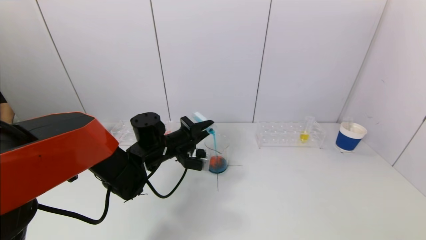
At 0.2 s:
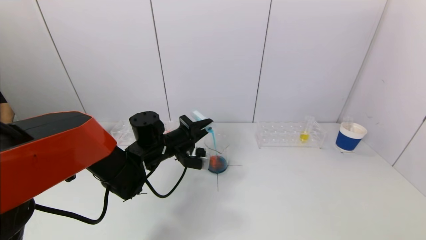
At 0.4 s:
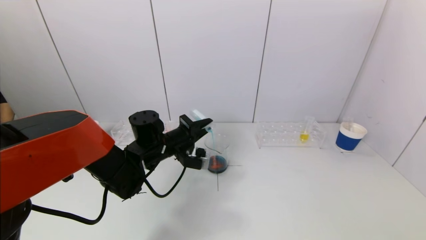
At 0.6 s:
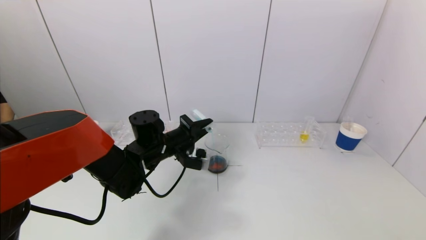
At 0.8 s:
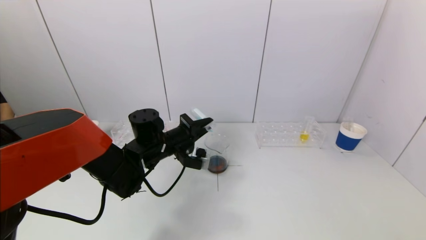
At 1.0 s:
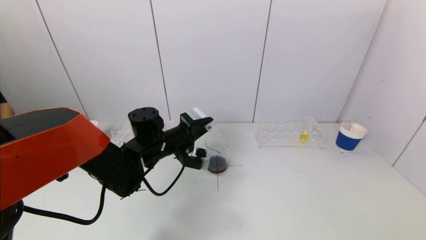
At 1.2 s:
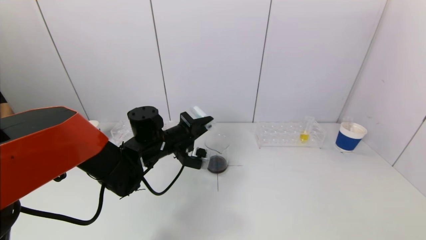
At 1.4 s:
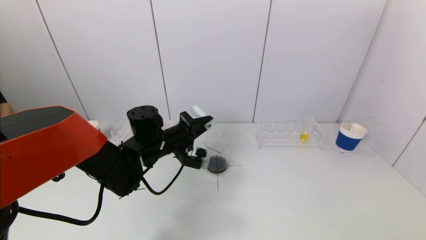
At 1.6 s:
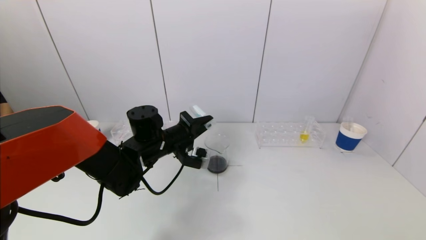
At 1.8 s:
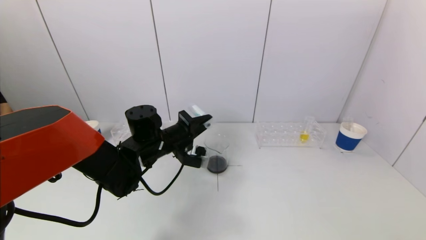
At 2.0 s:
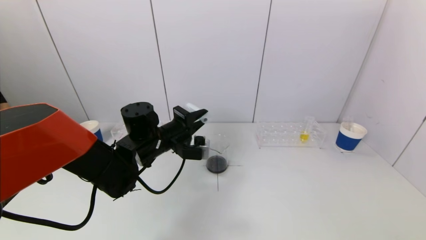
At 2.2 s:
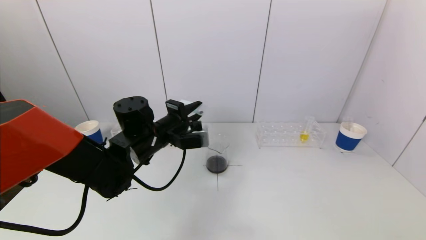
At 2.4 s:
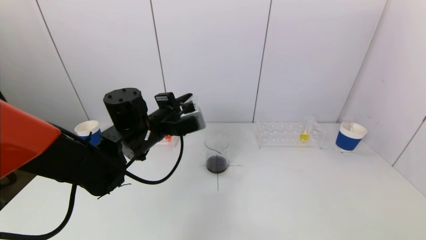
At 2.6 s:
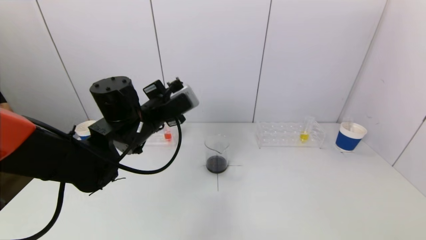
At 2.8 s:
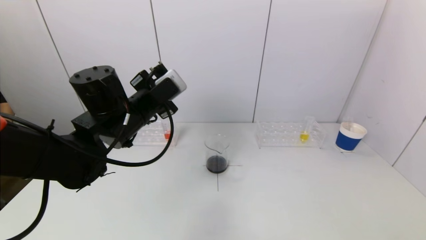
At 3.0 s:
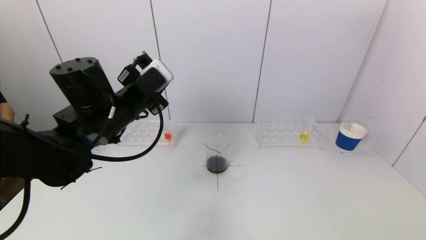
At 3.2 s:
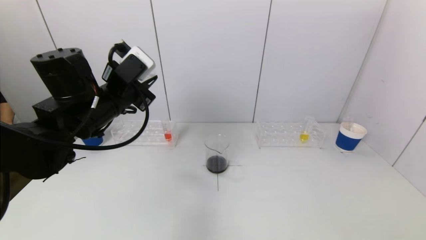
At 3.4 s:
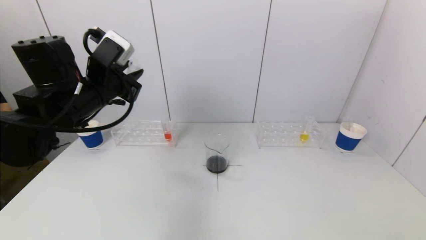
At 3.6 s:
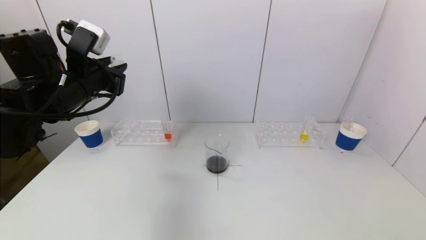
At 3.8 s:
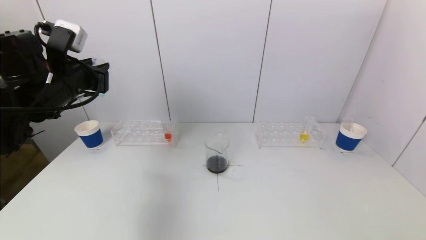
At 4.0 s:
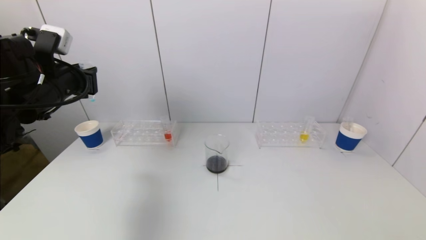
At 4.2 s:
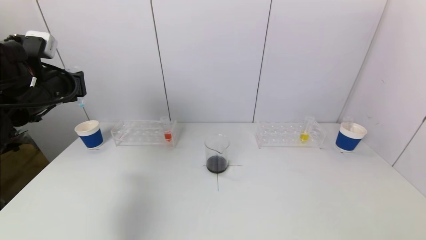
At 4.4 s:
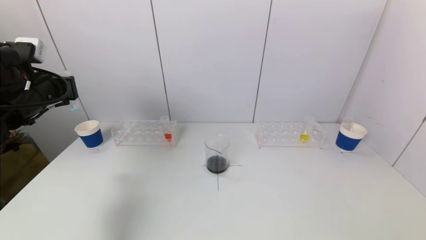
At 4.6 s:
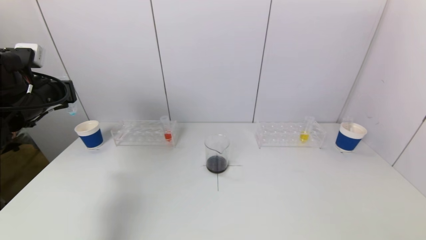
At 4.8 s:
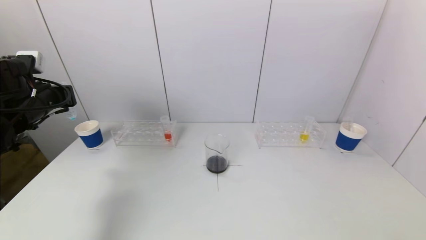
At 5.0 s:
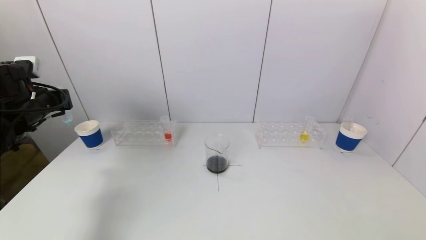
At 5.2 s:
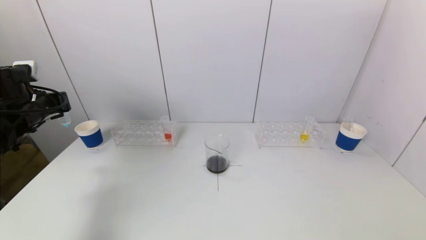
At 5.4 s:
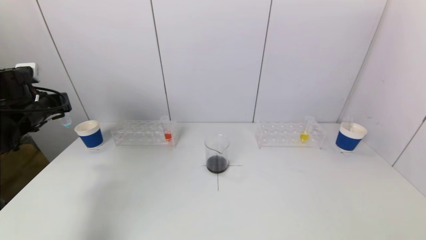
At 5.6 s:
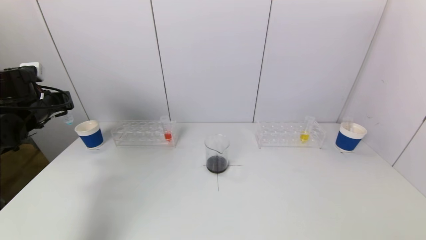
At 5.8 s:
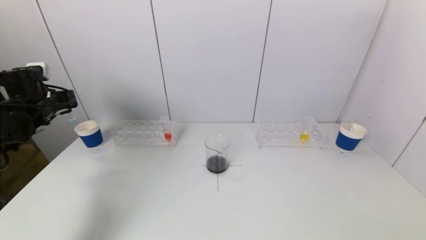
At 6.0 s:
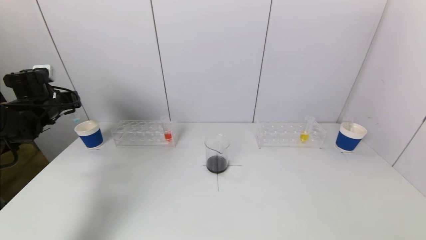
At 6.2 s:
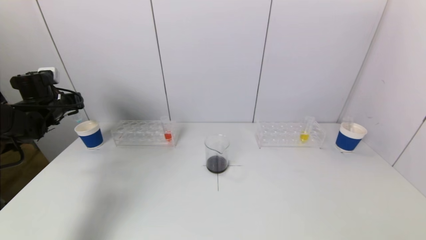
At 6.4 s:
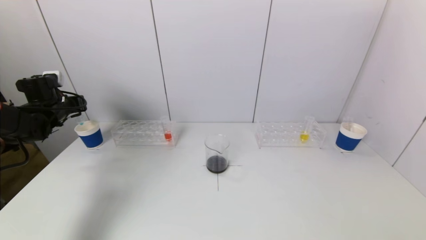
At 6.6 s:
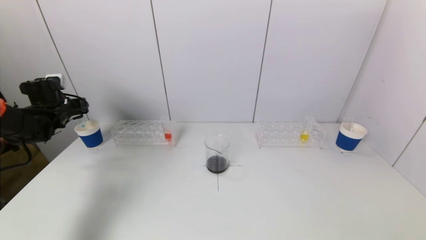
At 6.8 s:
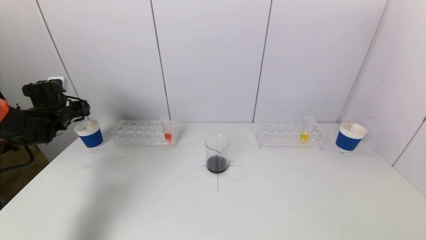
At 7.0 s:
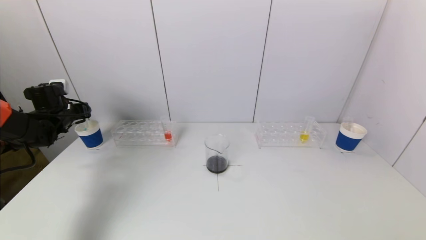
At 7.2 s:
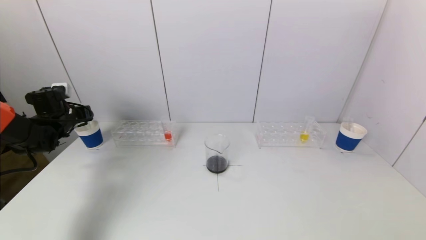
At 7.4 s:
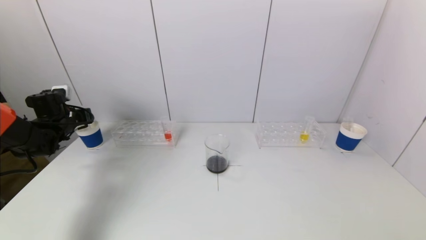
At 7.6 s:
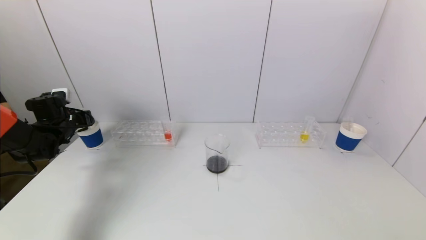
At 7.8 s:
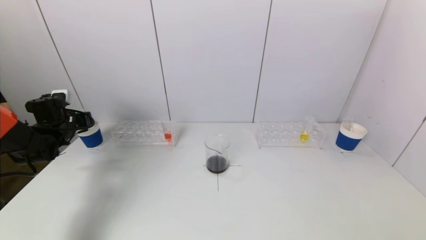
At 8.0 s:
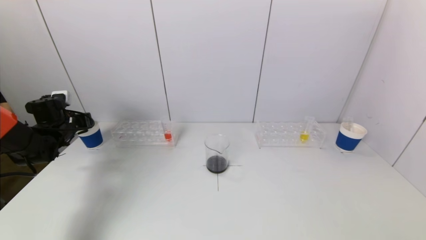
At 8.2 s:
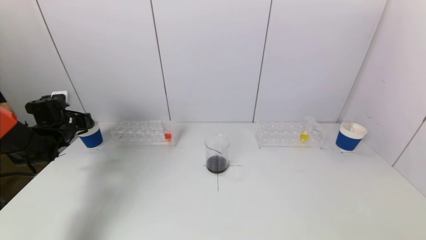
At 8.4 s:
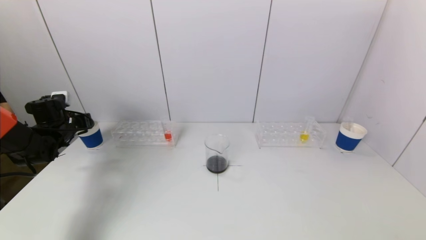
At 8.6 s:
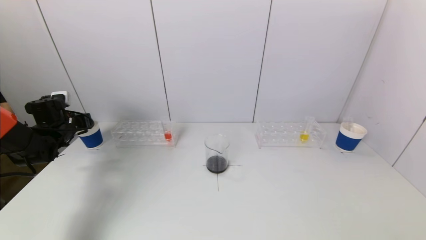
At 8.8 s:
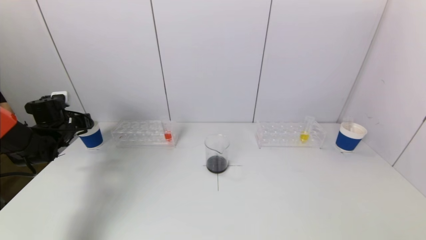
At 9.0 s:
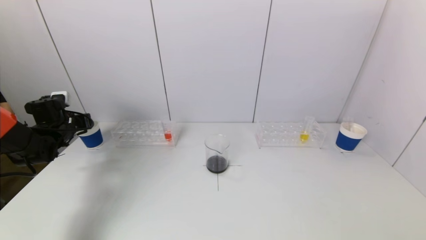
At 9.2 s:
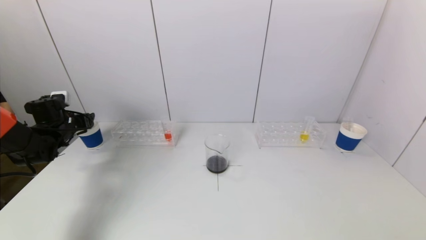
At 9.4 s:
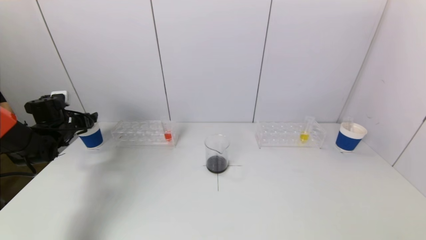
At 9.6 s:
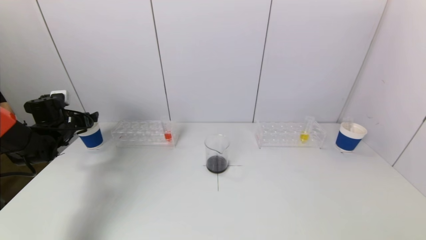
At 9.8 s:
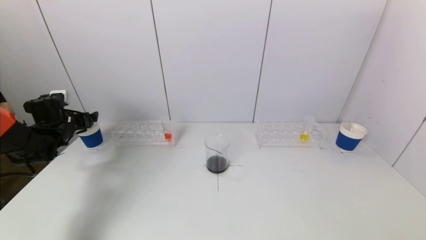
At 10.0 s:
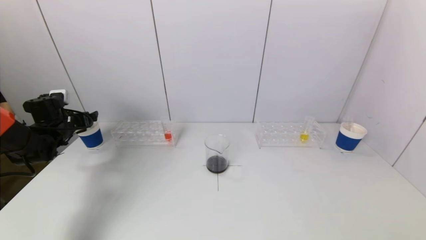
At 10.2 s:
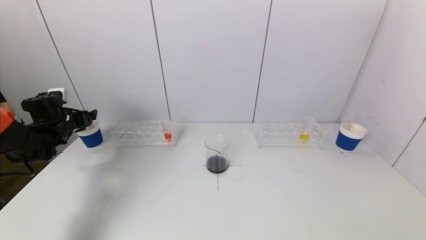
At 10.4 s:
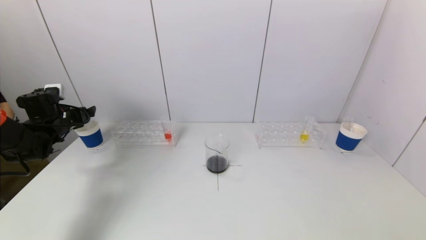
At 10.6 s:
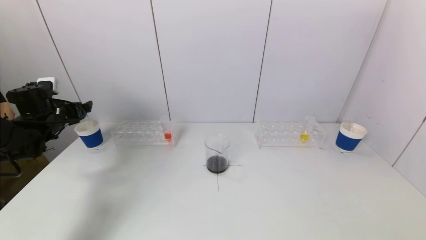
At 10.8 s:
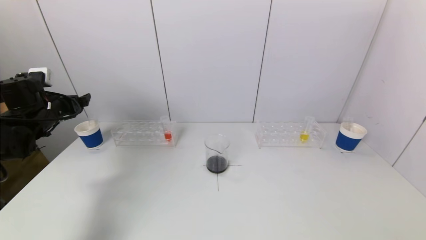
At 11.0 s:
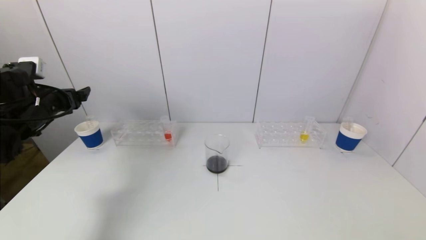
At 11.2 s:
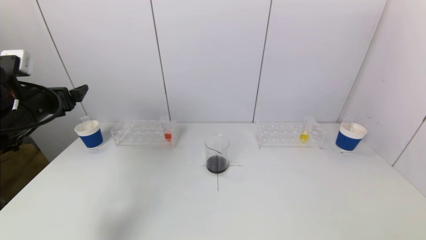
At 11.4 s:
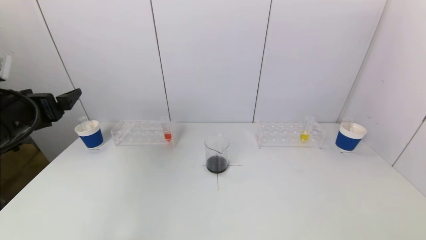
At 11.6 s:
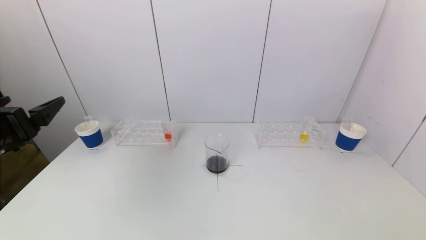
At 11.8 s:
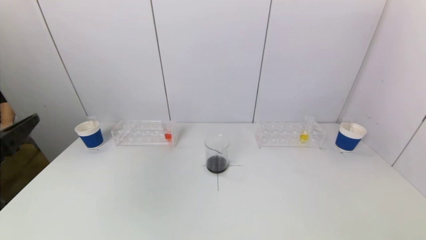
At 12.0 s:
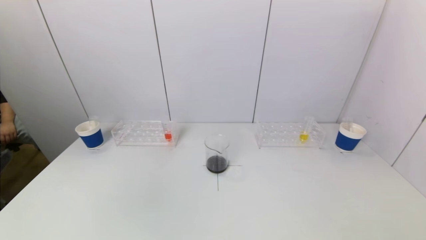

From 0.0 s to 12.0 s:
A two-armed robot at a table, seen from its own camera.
Task of the whole recording: pick up a test tube with pigment on left test tube rack and a test tube with pigment on right test tube rack by grippers and pour them into the beaker.
Step, from 2.0 s to 10.0 s: Place the test tube into the paper cup with the left gripper.
From 0.0 s to 1.6 s: The grippers move only a little.
From 1.6 s to 3.0 s: The left gripper is displaced upward and to the left by some 10 cm.
From 3.0 s to 4.4 s: The left gripper shifts some 15 cm to the left.
From 4.4 s to 6.0 s: The left gripper is displaced forward, to the left and downward by about 15 cm.
From 6.0 s to 7.6 s: The left gripper shifts about 5 cm downward.
From 7.6 s to 9.0 s: The left gripper opens up.
From 9.0 s to 10.4 s: The left gripper opens its fingers.
From 10.4 s to 12.0 s: The left gripper travels backward by about 35 cm.

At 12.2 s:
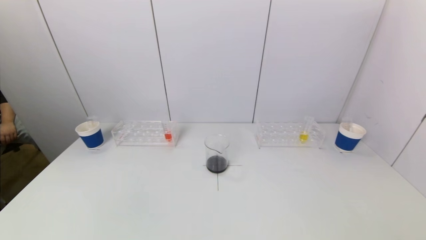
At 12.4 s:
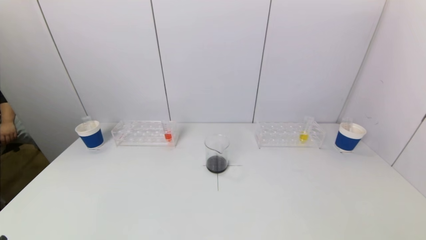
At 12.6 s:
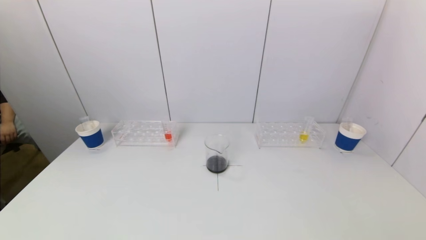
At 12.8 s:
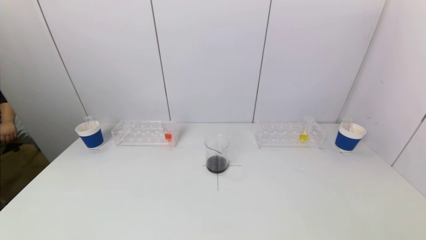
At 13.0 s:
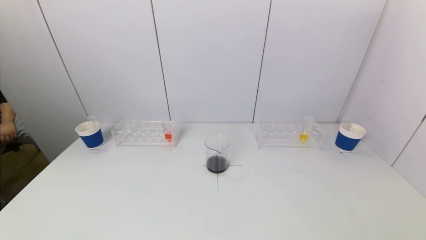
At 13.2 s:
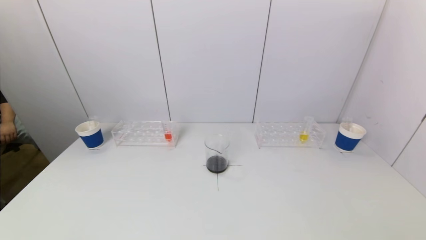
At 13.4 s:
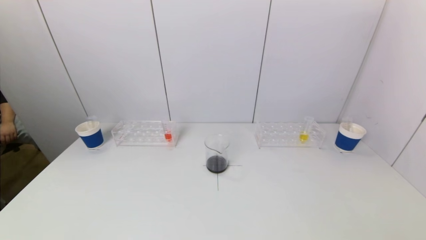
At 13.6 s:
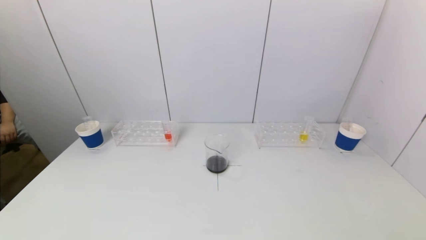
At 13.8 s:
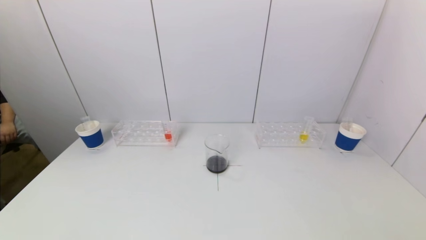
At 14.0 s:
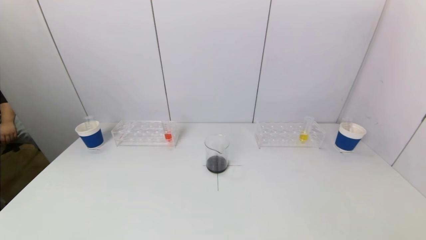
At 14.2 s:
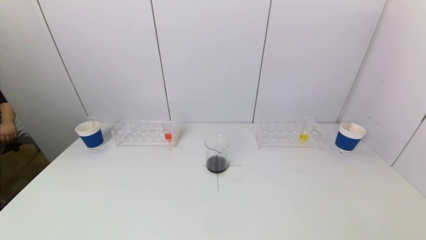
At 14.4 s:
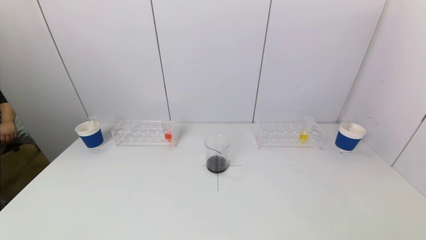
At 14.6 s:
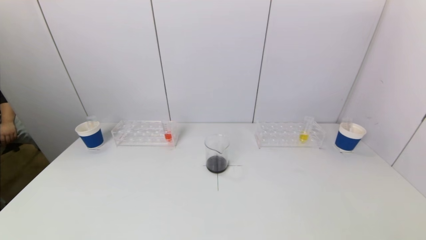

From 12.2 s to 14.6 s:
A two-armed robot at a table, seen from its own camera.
Task of the whole recording: pick up a test tube with pigment on left test tube rack and a test tube with pigment on right test tube rack by grippers and pour them into the beaker.
From 13.4 s to 14.6 s: Both grippers stay about where they are.
